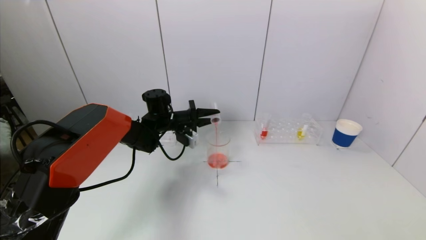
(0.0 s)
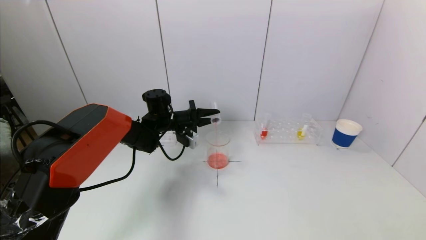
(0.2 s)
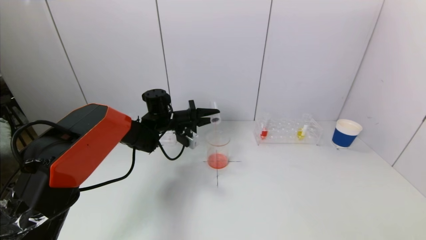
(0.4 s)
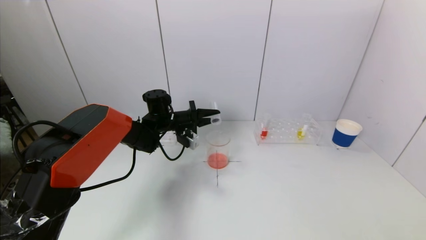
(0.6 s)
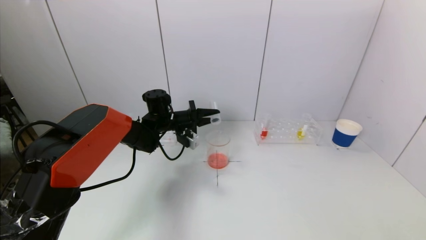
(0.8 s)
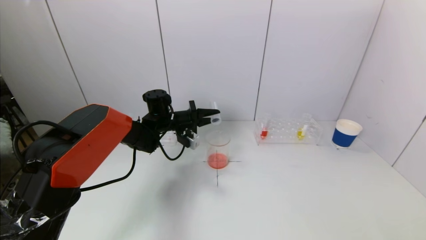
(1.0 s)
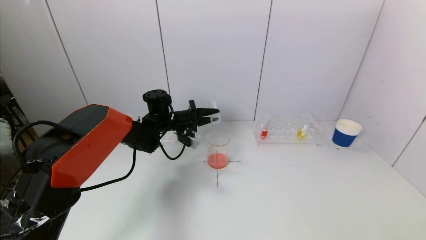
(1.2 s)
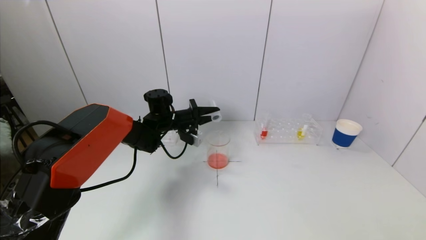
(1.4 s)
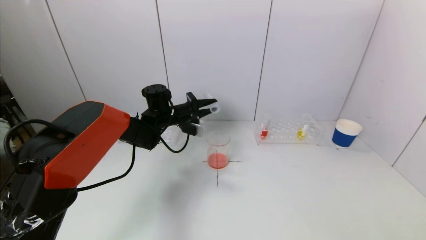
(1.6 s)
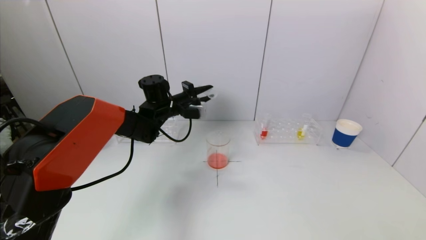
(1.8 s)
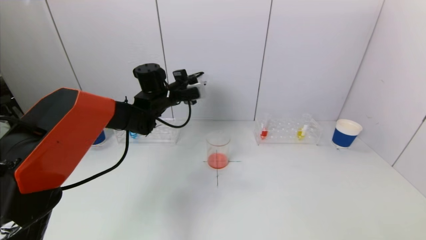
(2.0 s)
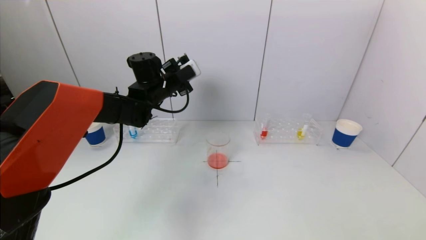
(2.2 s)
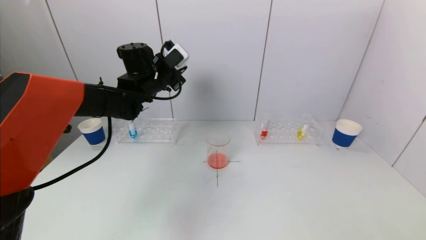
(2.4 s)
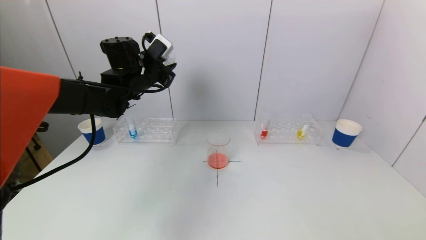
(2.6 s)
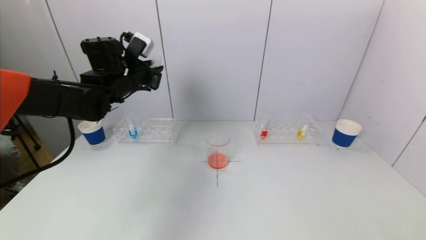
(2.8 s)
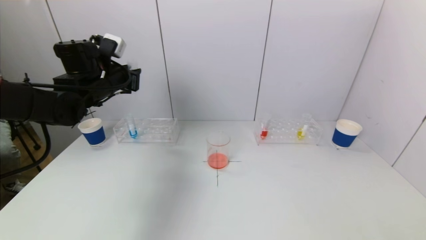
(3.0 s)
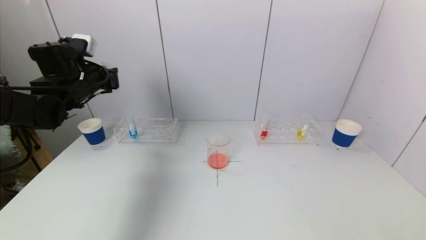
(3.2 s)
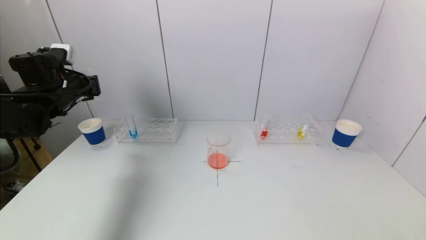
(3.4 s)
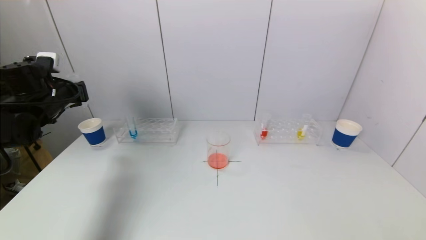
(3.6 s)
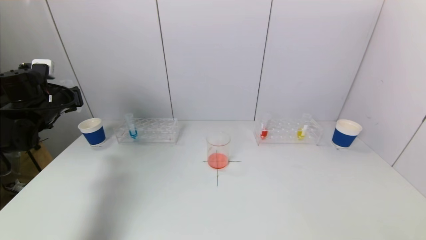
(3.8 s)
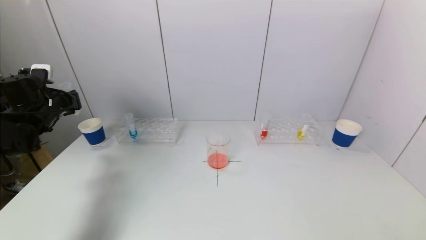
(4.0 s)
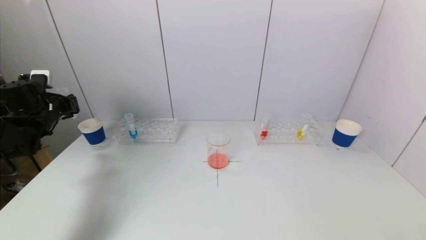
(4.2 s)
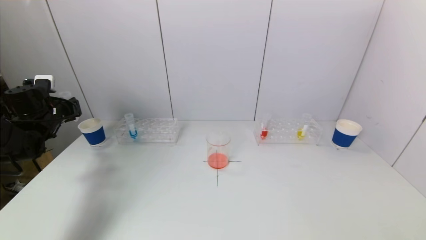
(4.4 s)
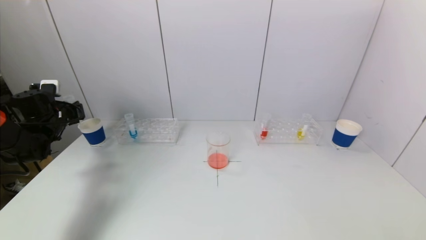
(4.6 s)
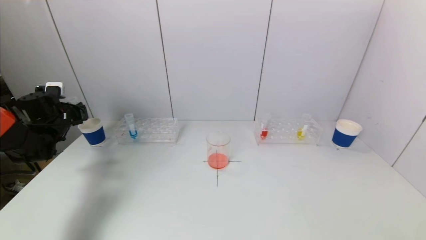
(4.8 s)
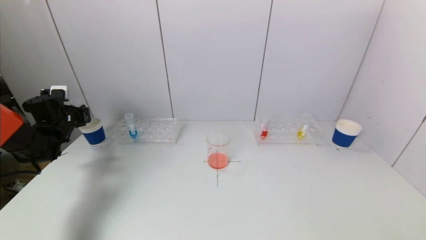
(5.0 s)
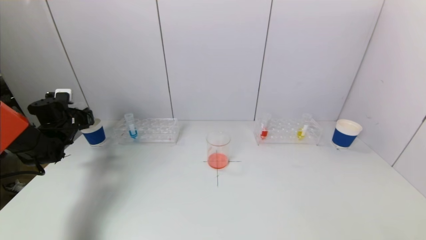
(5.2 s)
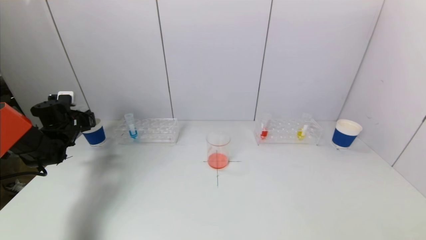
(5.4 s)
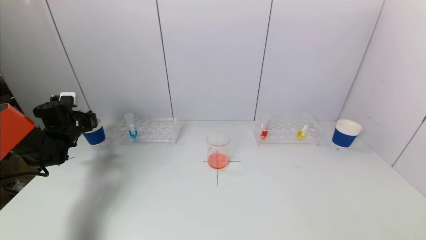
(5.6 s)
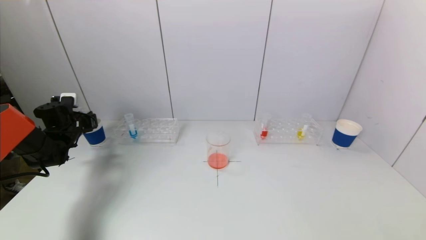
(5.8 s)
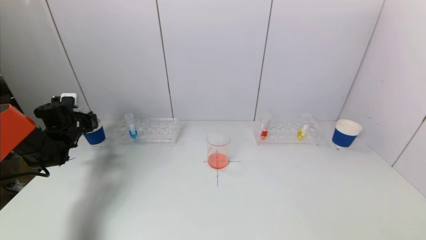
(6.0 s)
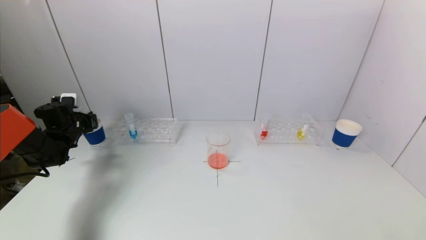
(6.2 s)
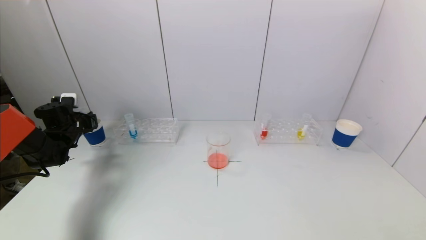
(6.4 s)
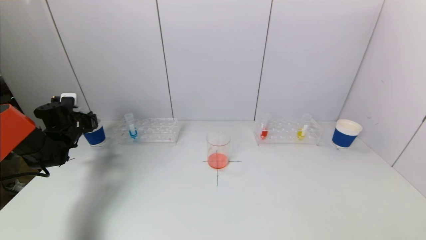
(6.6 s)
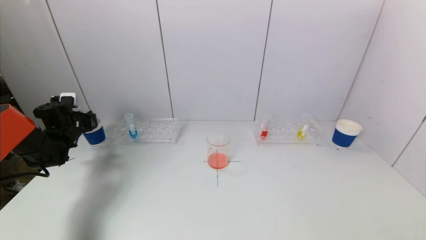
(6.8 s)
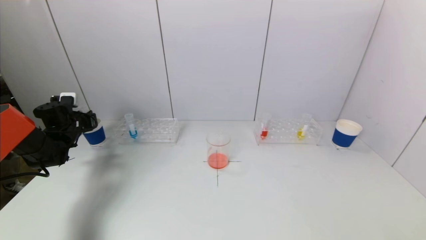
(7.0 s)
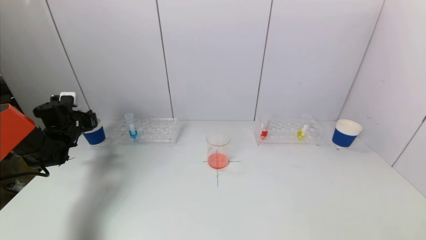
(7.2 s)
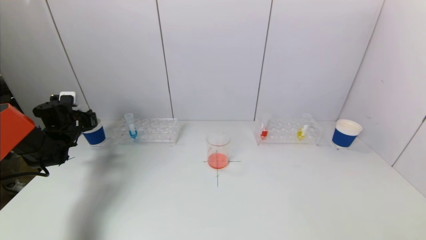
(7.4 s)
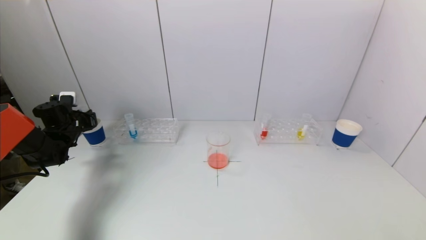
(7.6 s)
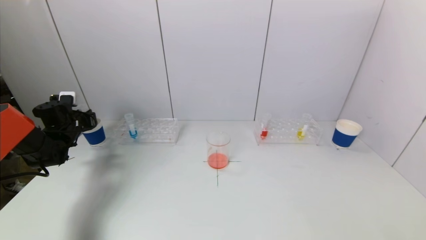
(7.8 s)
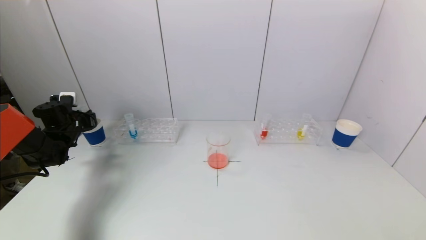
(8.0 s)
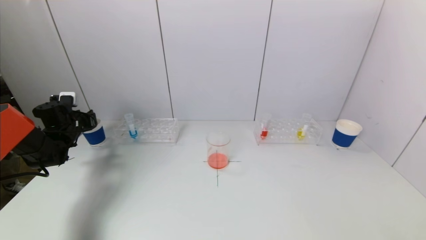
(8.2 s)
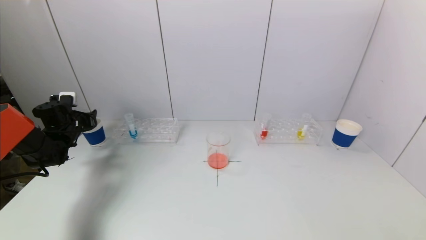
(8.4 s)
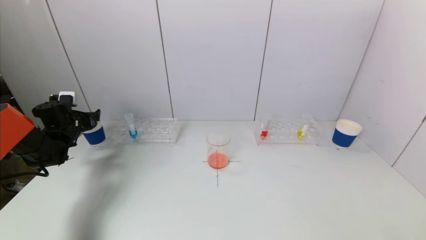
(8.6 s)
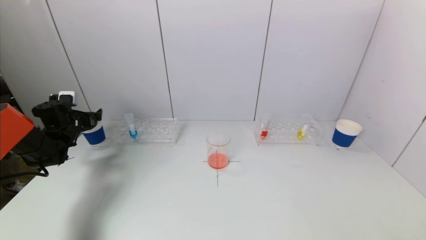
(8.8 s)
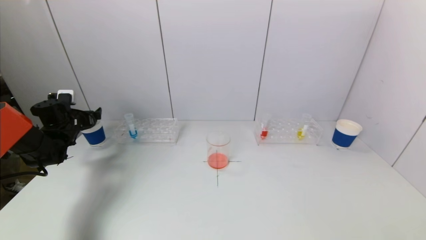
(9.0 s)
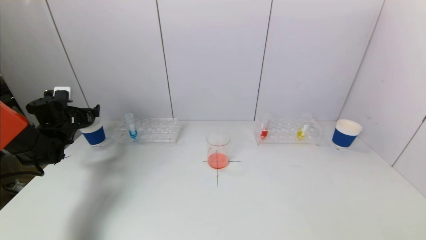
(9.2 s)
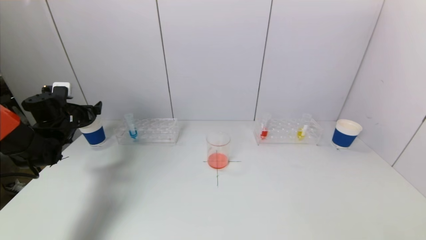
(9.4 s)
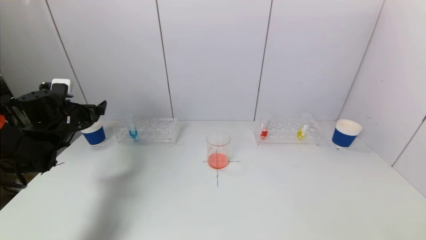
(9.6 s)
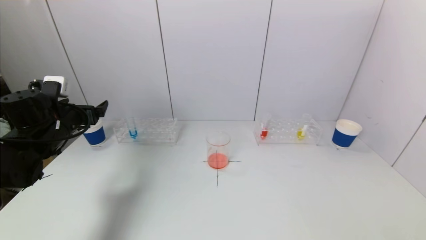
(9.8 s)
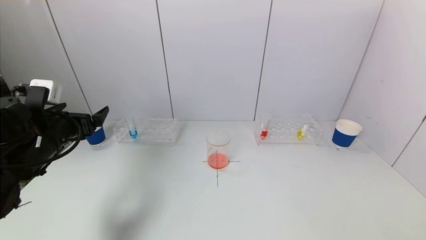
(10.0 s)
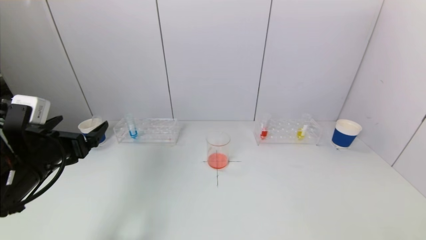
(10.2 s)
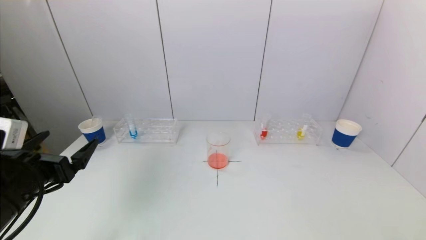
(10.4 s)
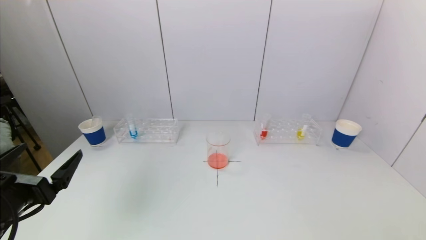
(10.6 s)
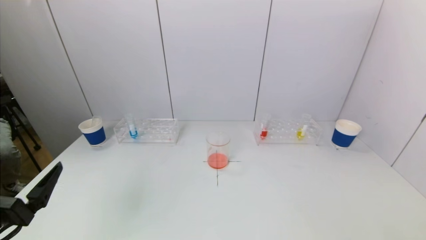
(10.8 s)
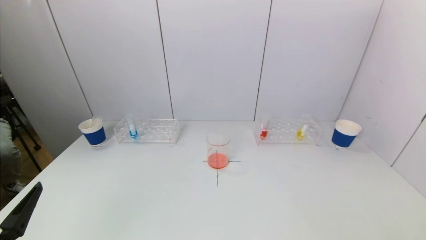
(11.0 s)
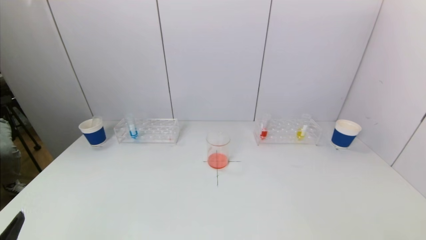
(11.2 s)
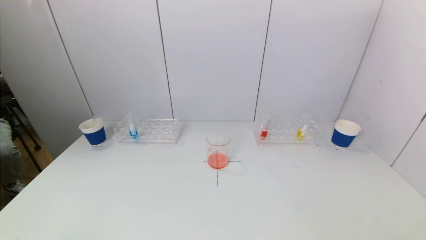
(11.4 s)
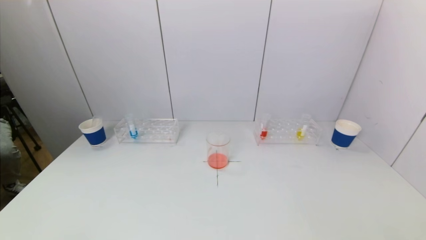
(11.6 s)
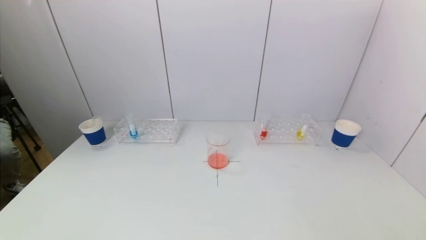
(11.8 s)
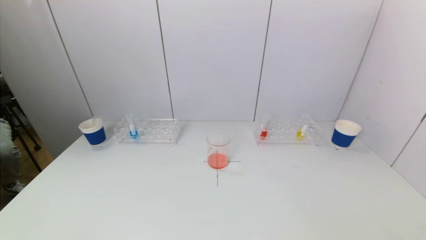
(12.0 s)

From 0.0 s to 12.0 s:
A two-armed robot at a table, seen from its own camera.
Task of the whole recording: pick up a test tube with pigment on left test tube rack and a test tube with pigment on right test tube rack by grippers and pour them into the beaker.
Step, from 2.0 s to 8.8 s: Place the test tube into the paper cup with the left gripper.
From 0.0 s to 1.6 s: There are only small adjustments of the grippers.
From 1.6 s to 3.0 s: The left gripper moves to the left, upward and backward, some 20 cm.
From 3.0 s to 4.4 s: The left gripper goes approximately 20 cm to the left and downward.
From 4.4 s to 6.0 s: The left gripper travels downward by some 5 cm.
From 6.0 s to 7.6 s: Both grippers stay about where they are.
From 7.6 s to 9.0 s: The left gripper opens its fingers.
From 9.0 s to 10.4 s: The left gripper shifts approximately 30 cm backward and to the right.
From 10.4 s to 12.0 s: The left gripper travels backward and downward by some 20 cm.

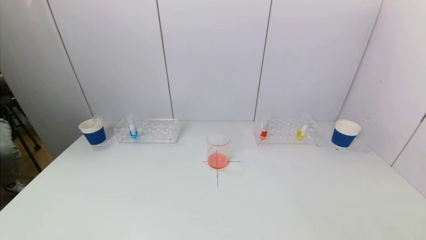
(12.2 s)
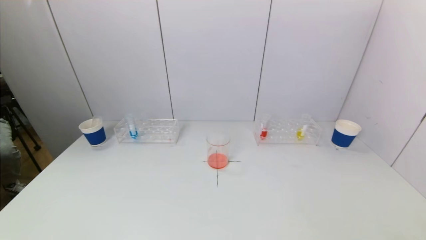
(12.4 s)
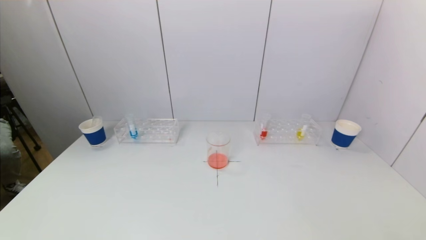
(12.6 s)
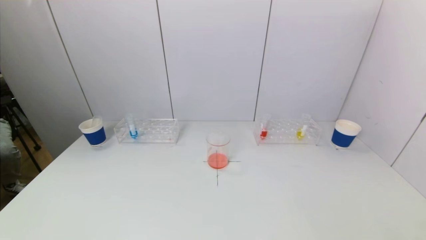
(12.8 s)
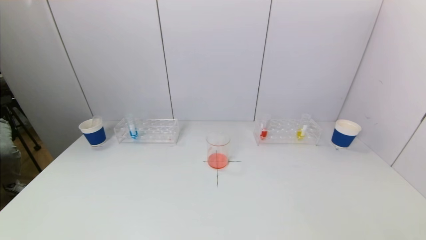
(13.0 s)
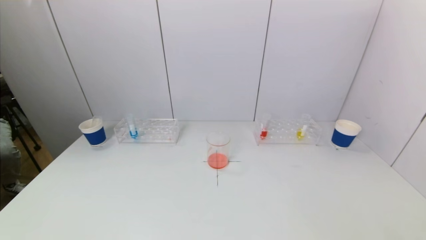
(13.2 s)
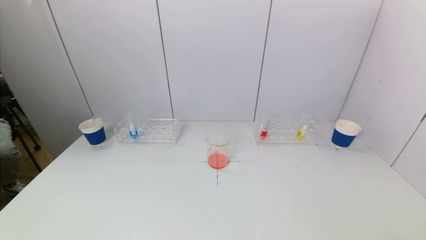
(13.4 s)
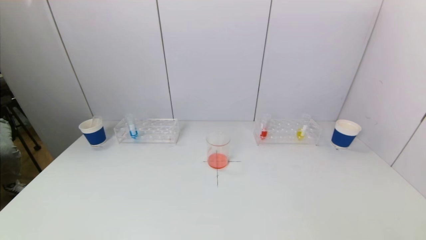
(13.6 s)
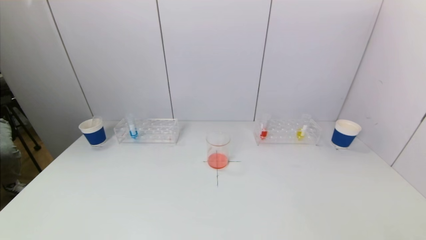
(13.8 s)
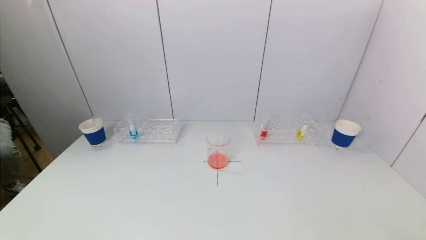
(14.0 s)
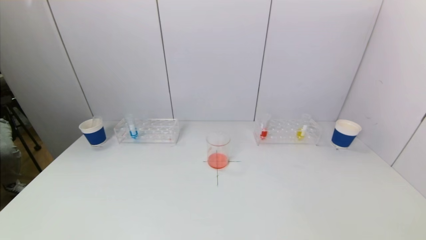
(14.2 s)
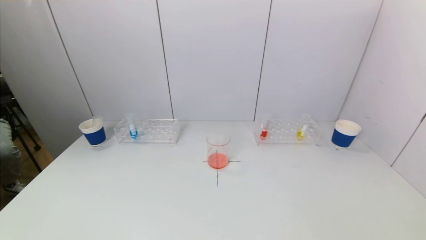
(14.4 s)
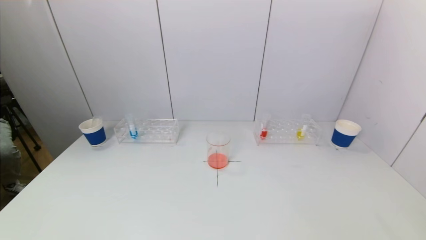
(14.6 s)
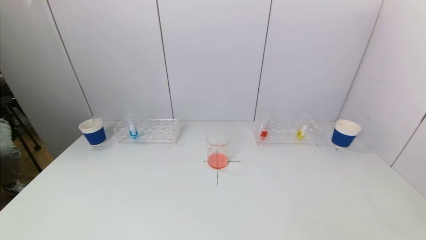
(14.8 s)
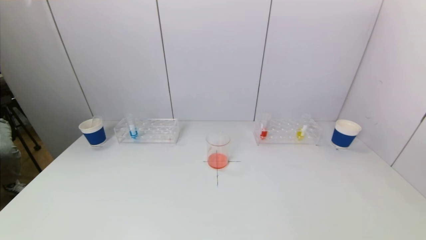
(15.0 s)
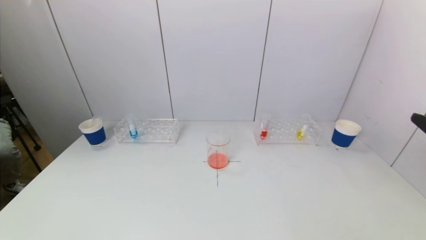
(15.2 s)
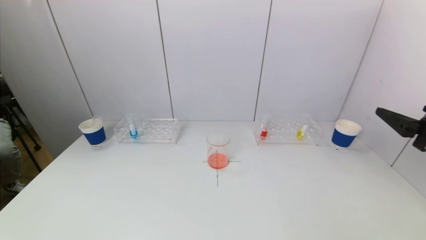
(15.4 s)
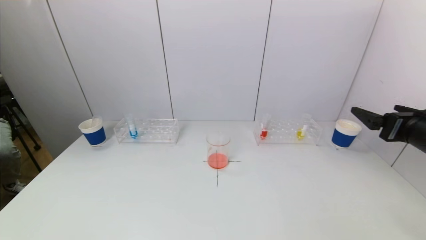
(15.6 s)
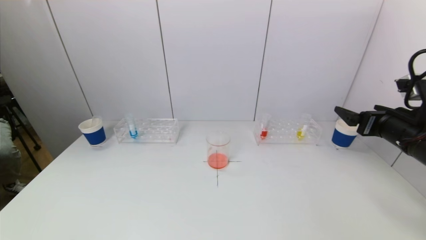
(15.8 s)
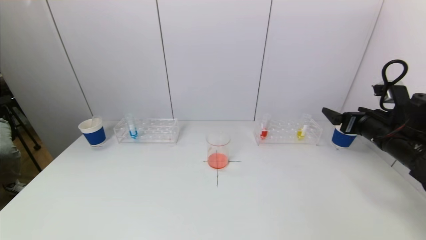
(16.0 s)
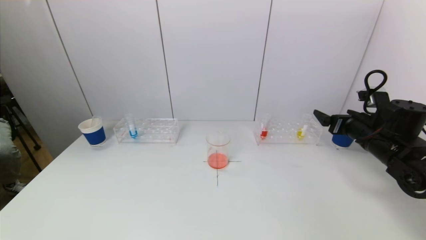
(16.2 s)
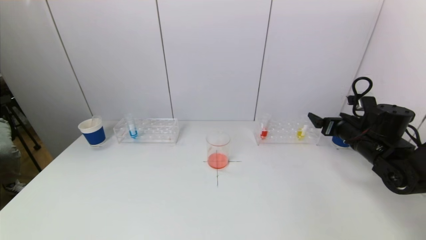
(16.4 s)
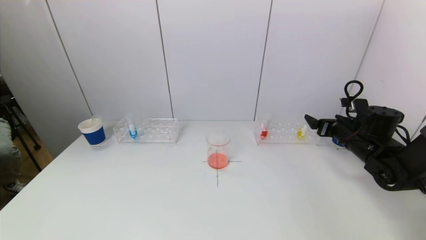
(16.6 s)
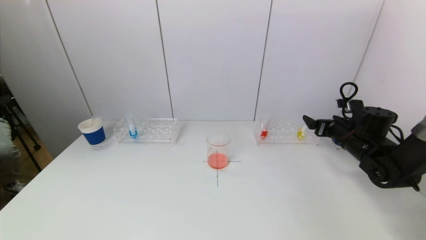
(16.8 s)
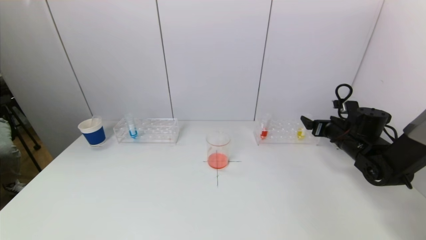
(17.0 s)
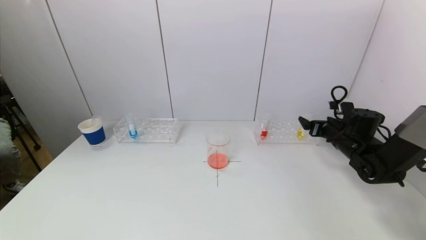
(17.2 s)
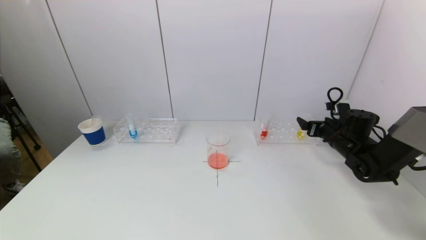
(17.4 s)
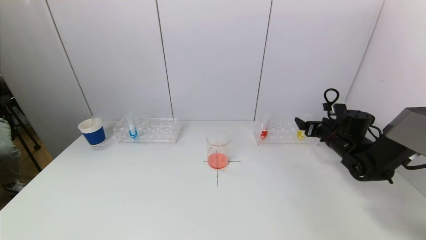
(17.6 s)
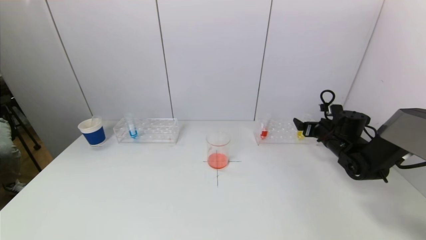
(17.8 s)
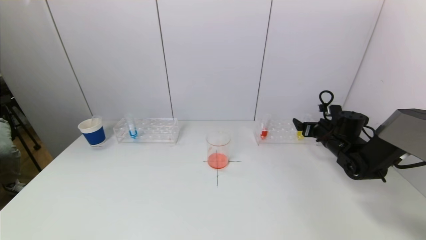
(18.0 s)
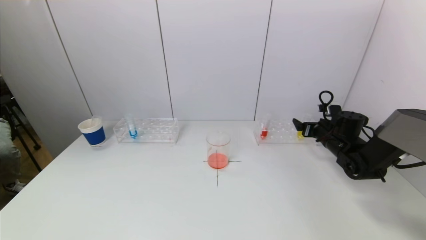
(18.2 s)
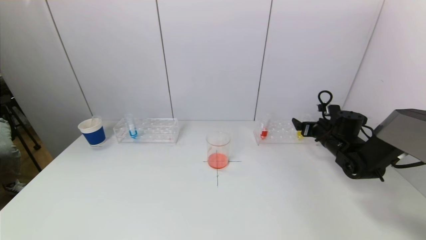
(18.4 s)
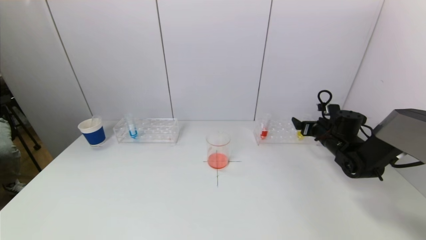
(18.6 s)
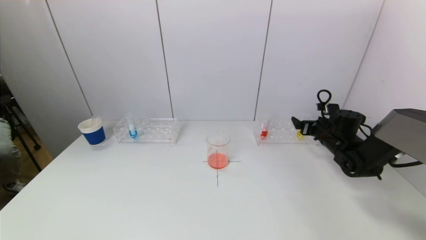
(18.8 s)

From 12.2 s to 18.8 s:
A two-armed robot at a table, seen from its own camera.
Task of the whole recording: pick up a test tube with pigment on left test tube rack and a test tube with pigment on right test tube rack by grippers and pour them into the beaker.
From 12.2 s to 13.8 s: Both grippers stay about where they are.
From 13.8 s to 15.4 s: The right gripper is displaced forward and upward by approximately 25 cm.
From 15.4 s to 17.2 s: The right gripper travels forward and downward by roughly 25 cm.
From 17.2 s to 18.8 s: The grippers move only a little.
